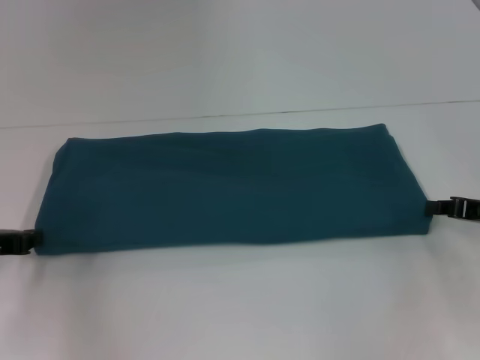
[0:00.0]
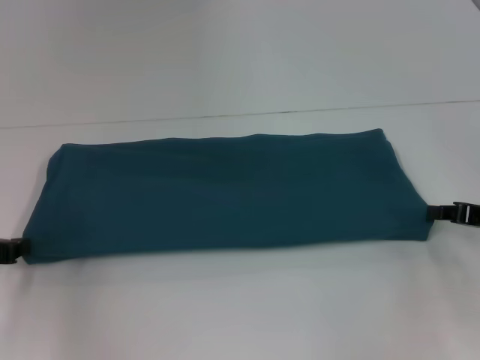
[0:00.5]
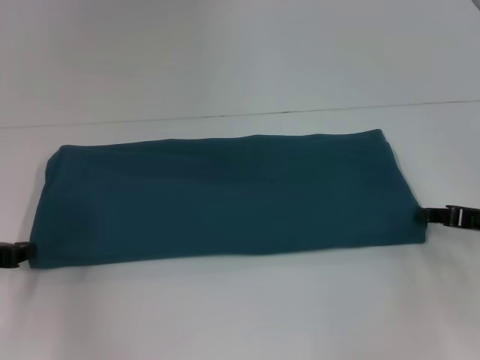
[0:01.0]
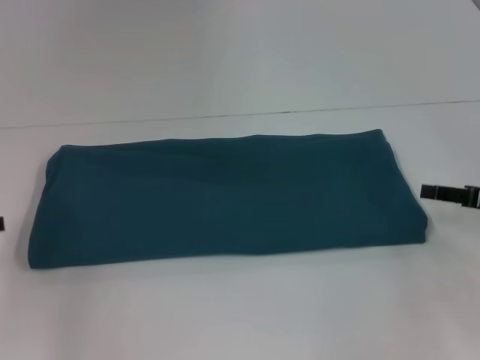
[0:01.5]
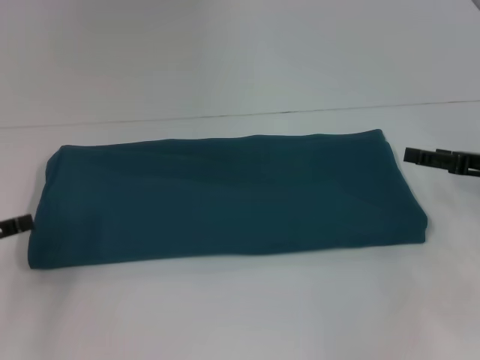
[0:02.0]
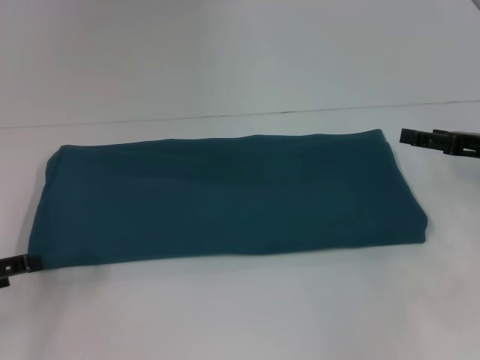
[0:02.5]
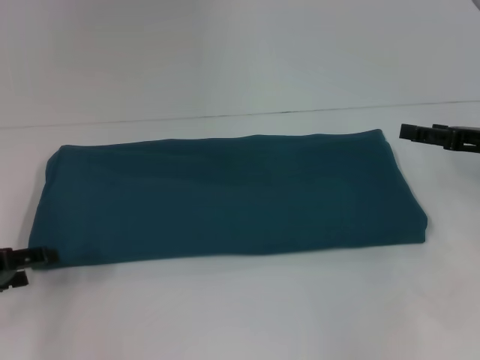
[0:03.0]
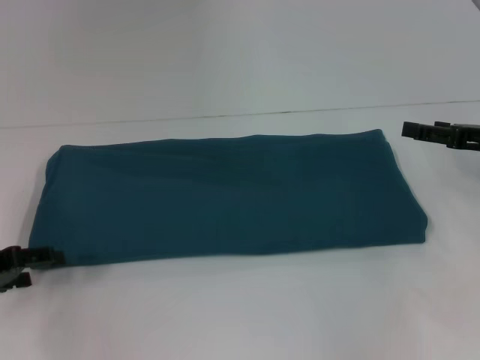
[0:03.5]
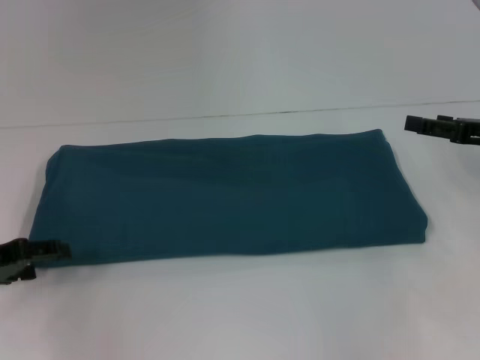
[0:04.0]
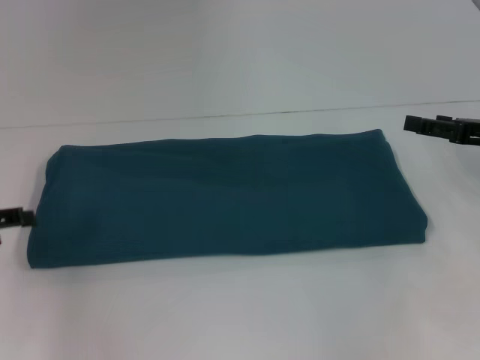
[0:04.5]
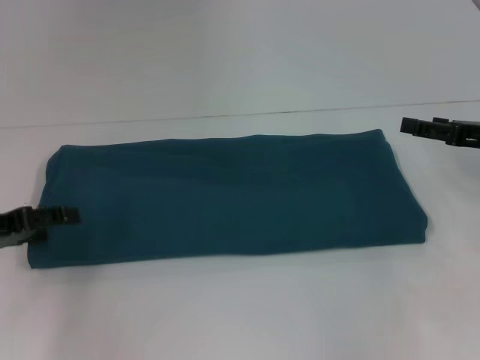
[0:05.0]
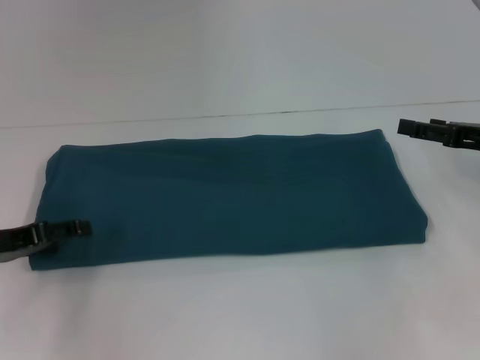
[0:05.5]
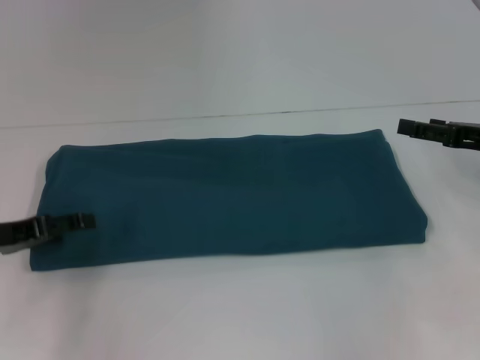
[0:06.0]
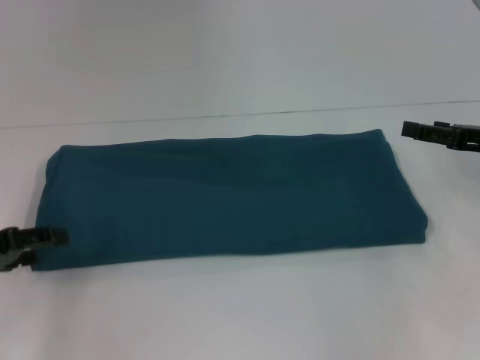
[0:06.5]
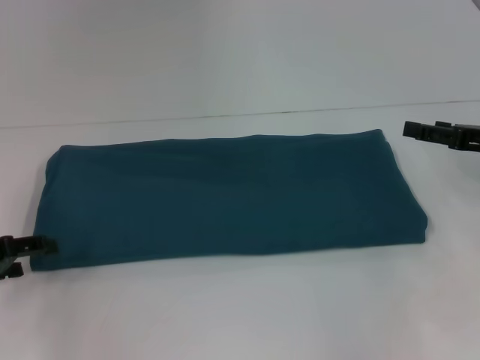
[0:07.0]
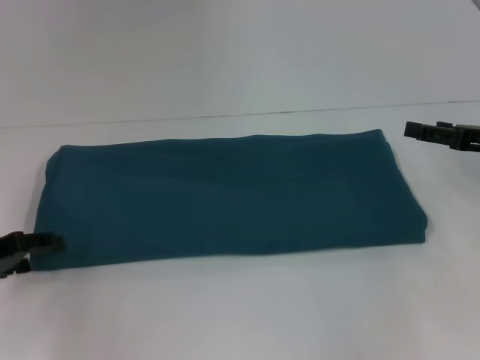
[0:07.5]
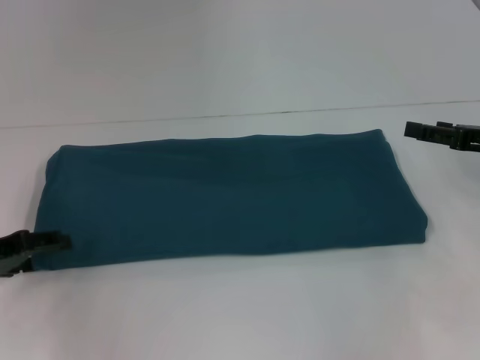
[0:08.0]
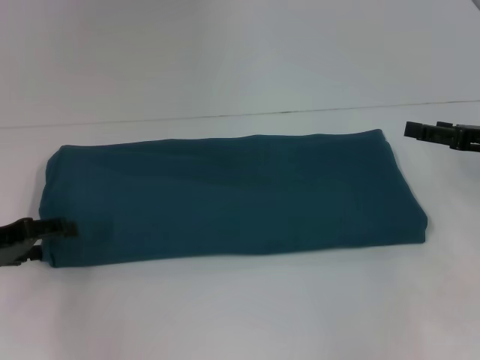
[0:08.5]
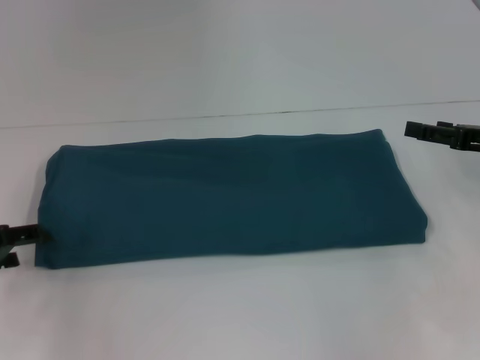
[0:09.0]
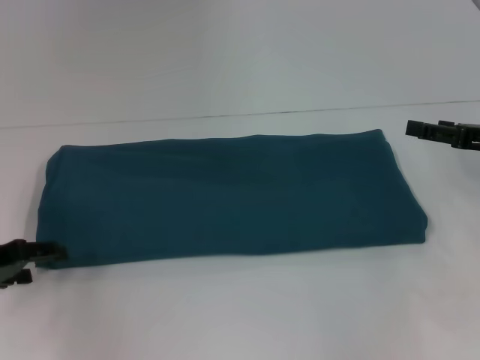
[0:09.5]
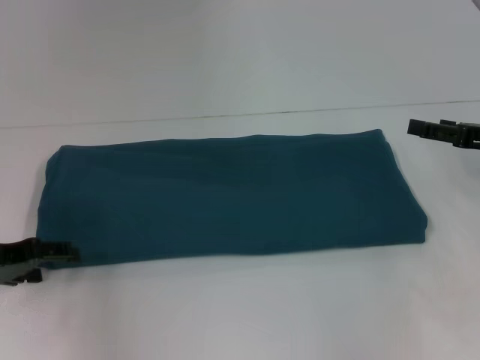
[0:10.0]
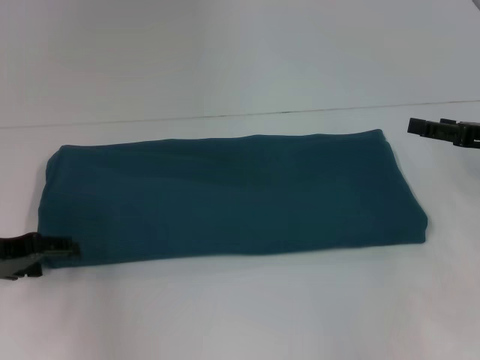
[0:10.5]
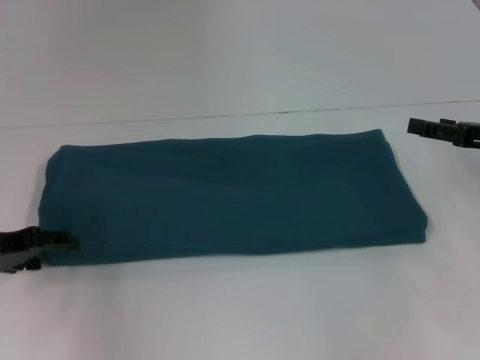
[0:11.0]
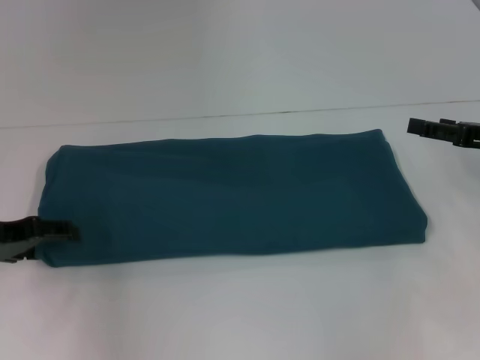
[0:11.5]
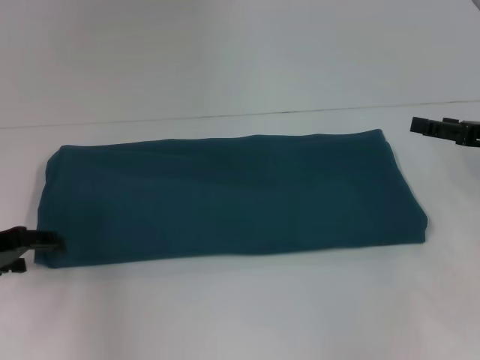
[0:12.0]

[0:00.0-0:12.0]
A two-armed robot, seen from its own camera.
0:00.0 to 0:02.0: The left gripper changes place by some 5 cm, and opens up. Meanwhile the right gripper opens up.
0:04.0 to 0:12.0: The grippers move only a little.

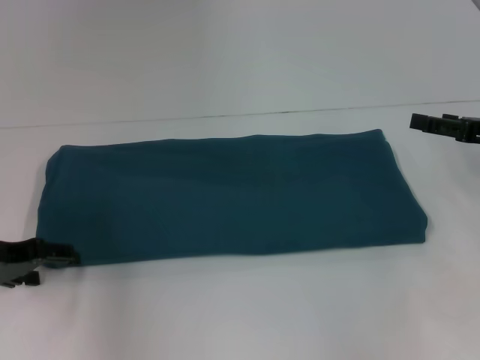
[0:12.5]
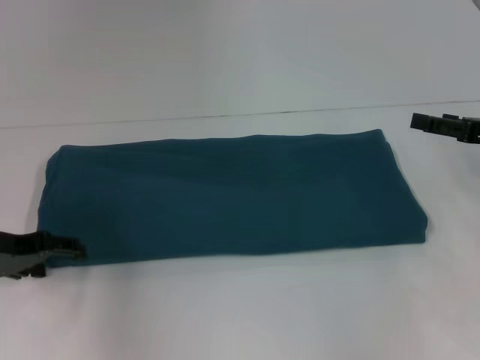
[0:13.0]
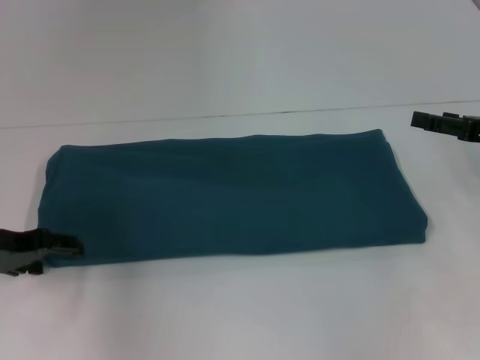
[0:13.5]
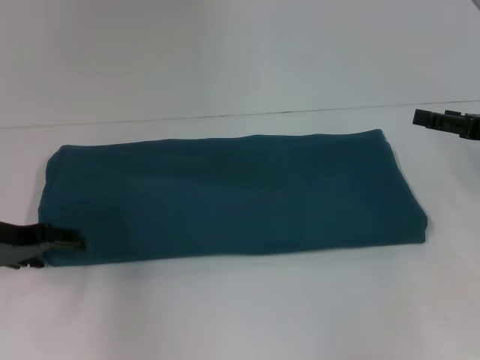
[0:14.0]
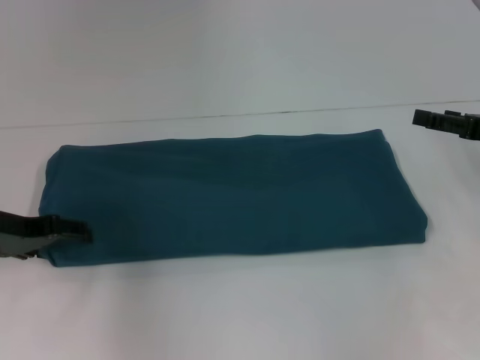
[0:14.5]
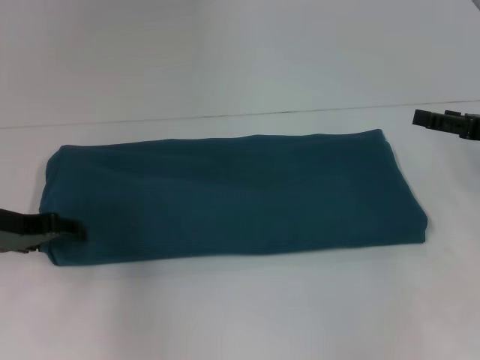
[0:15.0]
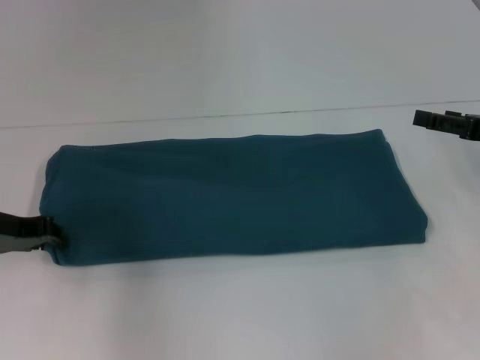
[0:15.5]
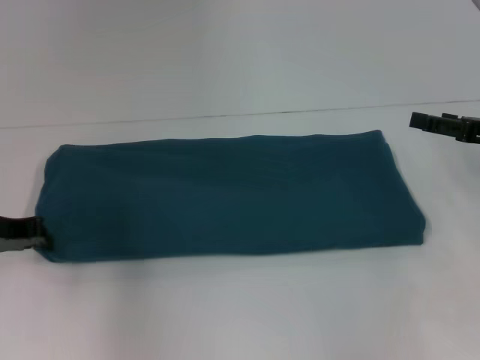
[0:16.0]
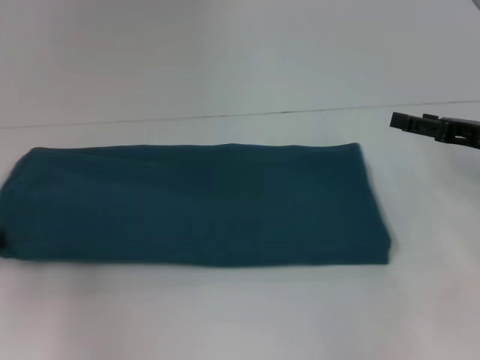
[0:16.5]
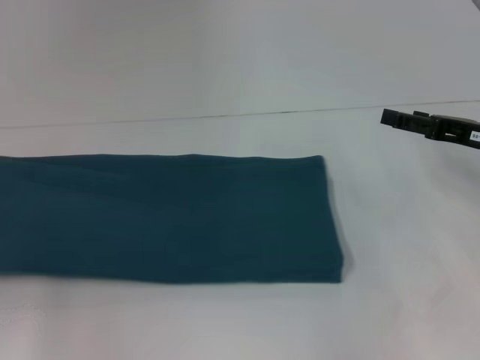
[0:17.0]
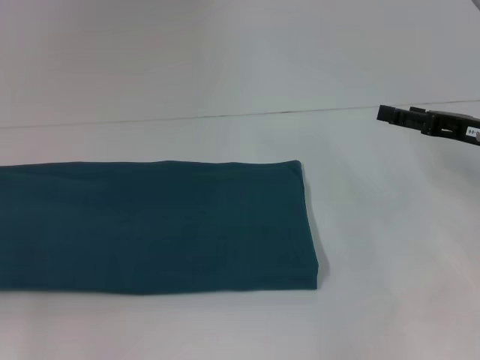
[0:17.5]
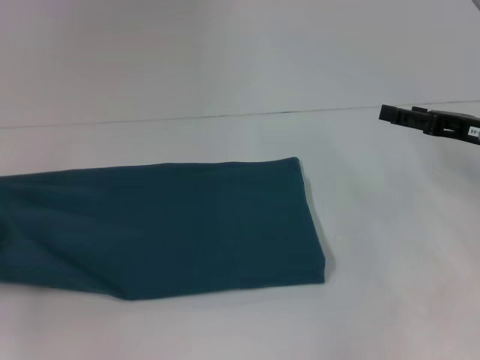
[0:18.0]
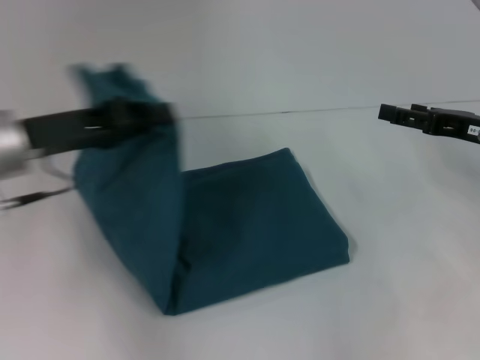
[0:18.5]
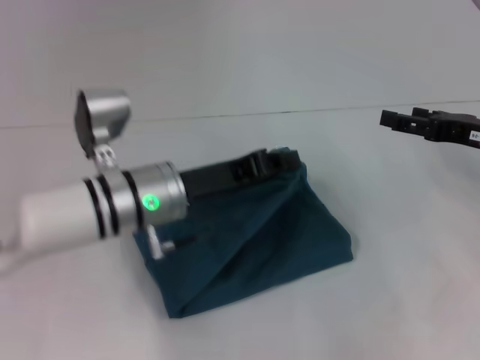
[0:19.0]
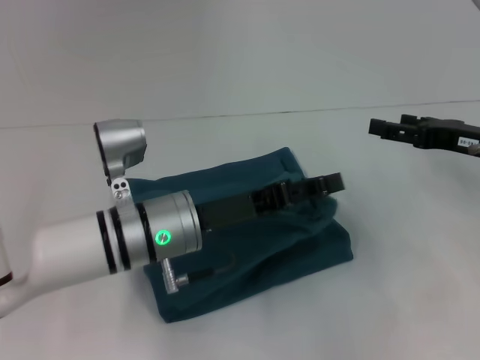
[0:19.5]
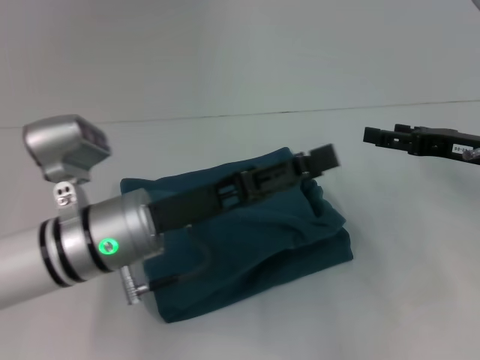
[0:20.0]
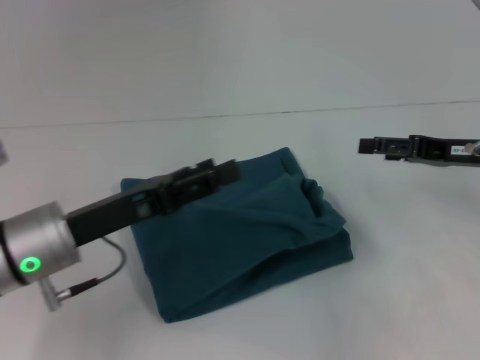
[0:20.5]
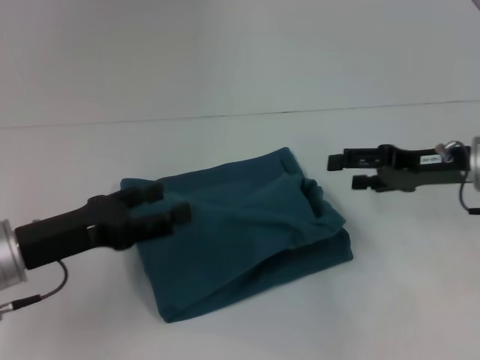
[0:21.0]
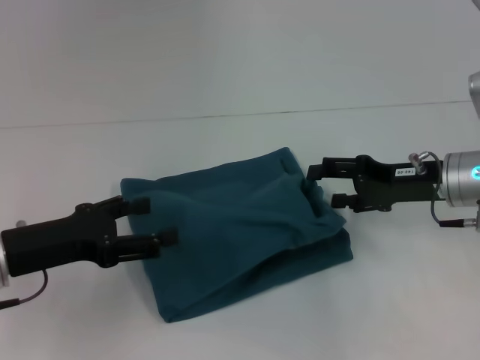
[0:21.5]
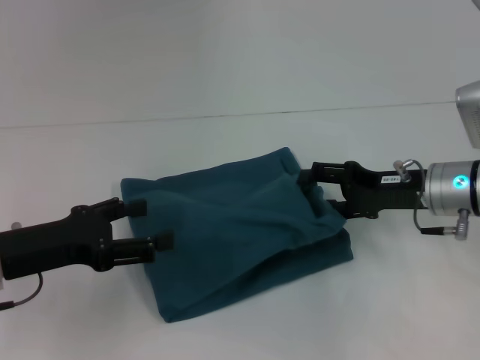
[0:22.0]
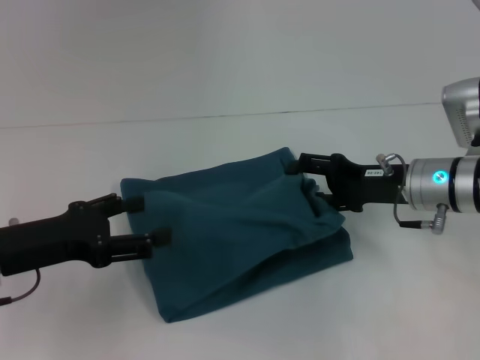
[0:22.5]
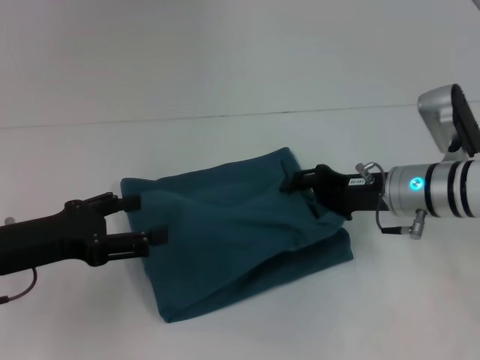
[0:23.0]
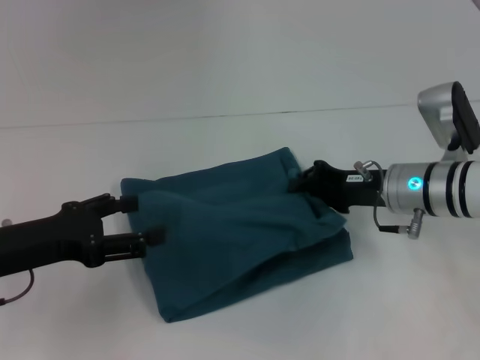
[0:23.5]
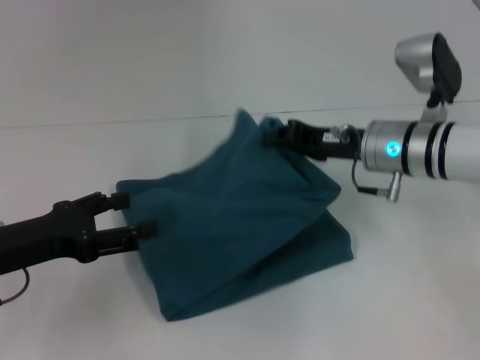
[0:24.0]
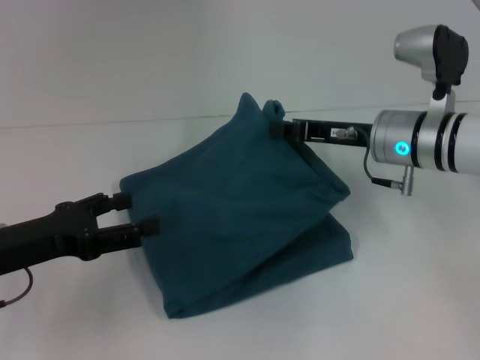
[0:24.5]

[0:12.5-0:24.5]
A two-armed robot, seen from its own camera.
Step, 0:12.5 to 0:19.5: Fold the clothes to the left.
0:12.5 to 0:14.5: The grippers move only a little.
0:14.5 to 0:16.5: The left gripper is displaced to the left by roughly 5 cm, and closes its fingers.
0:16.5 to 0:18.5: The left gripper travels to the right and upward by some 15 cm.
0:18.5 to 0:20.5: The left gripper heads downward and backward, covering about 10 cm, travels to the right and back again, about 15 cm each way, and opens up.
0:20.5 to 0:22.5: Both grippers move to the left, some 5 cm.
0:22.5 to 0:24.5: The right gripper shifts by roughly 5 cm, and closes its fingers.

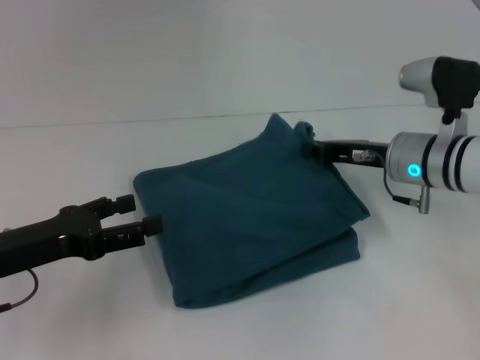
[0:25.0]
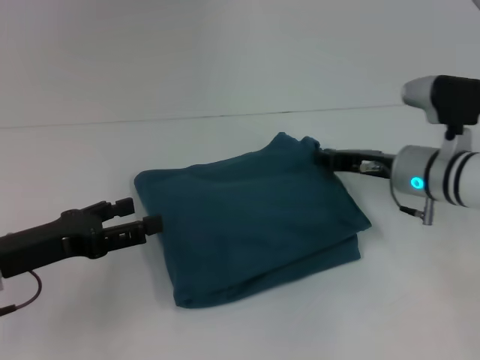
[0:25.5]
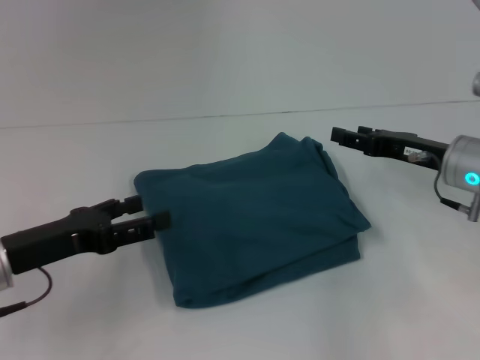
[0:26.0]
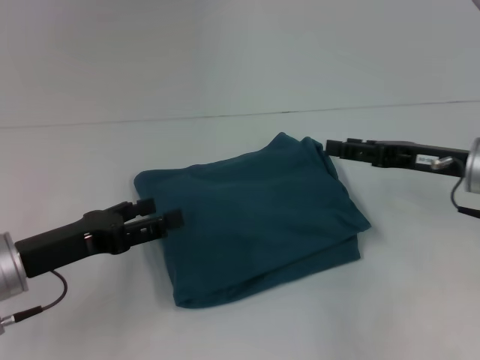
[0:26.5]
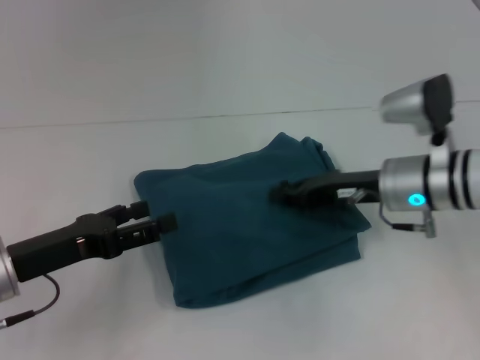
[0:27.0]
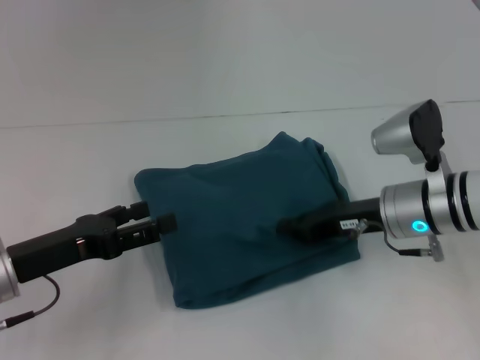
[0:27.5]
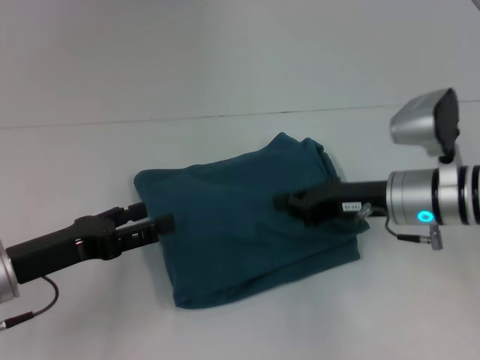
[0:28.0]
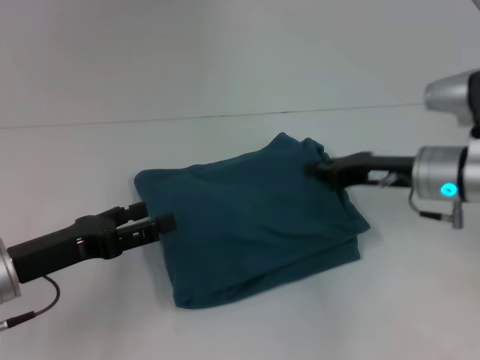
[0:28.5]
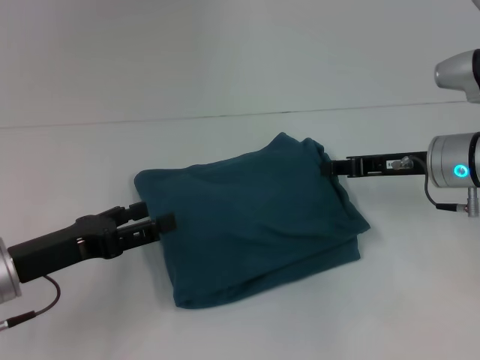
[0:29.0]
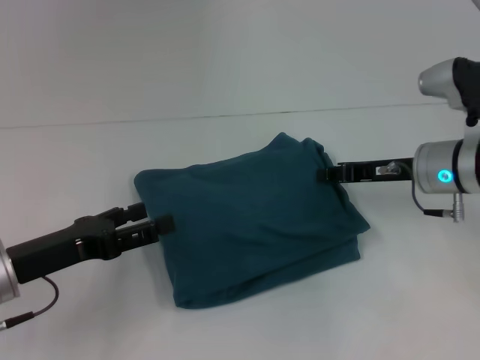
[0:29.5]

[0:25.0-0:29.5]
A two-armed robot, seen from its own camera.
0:25.0 to 0:27.0: The right gripper goes to the right and returns, some 5 cm each way, and opens.
